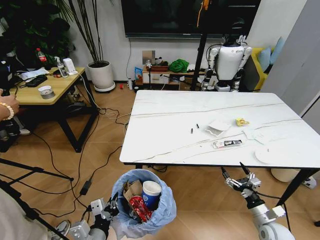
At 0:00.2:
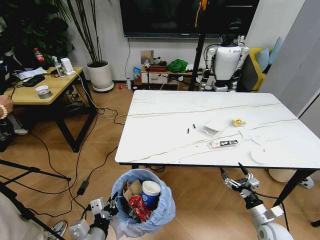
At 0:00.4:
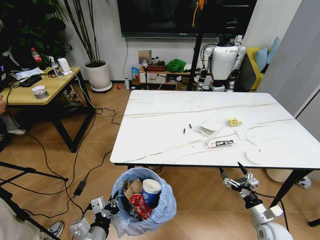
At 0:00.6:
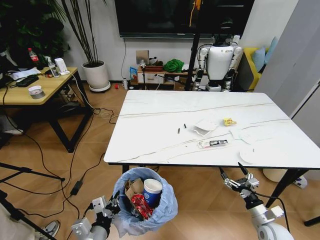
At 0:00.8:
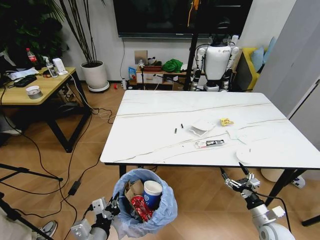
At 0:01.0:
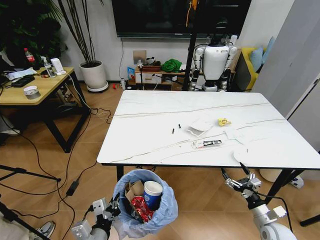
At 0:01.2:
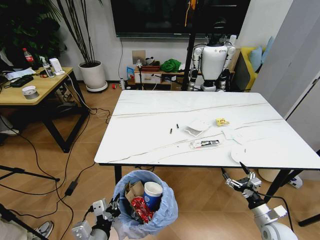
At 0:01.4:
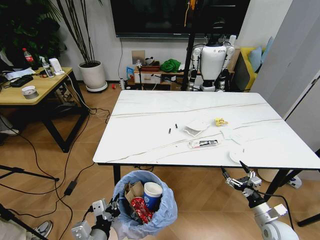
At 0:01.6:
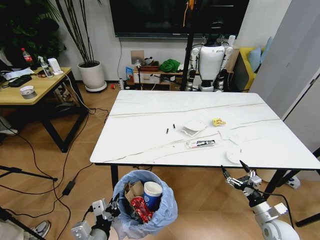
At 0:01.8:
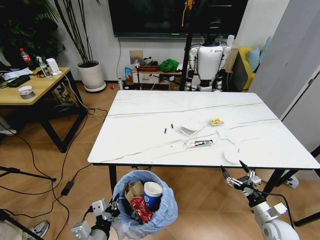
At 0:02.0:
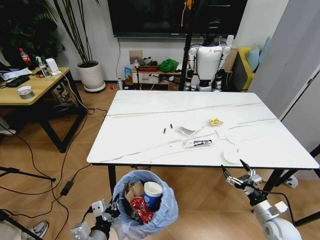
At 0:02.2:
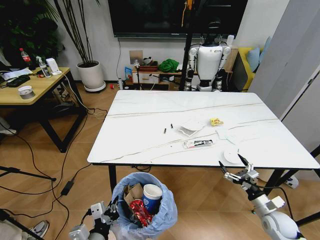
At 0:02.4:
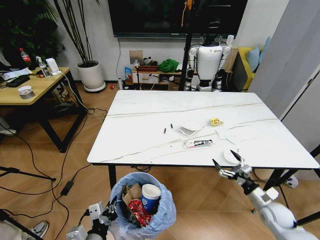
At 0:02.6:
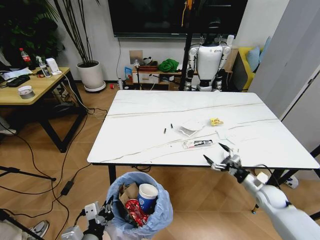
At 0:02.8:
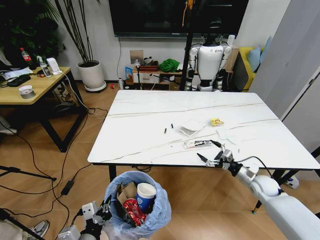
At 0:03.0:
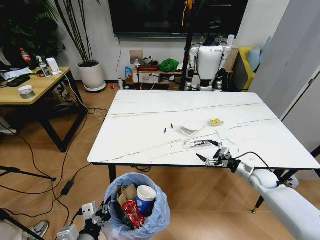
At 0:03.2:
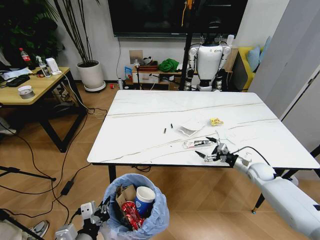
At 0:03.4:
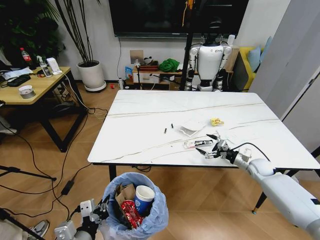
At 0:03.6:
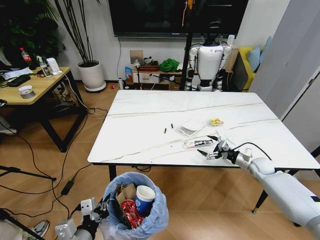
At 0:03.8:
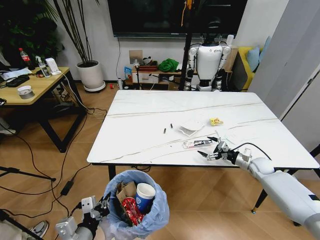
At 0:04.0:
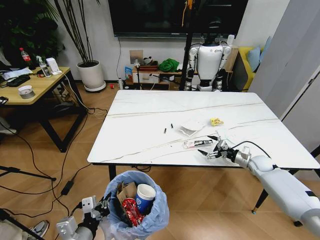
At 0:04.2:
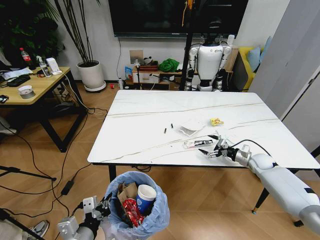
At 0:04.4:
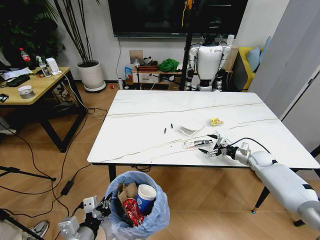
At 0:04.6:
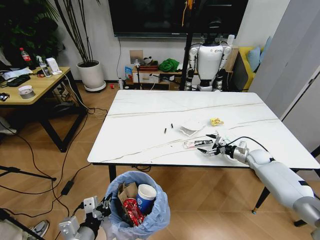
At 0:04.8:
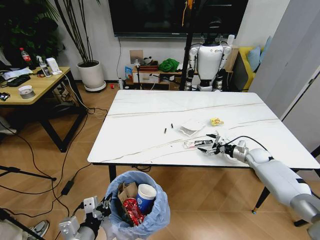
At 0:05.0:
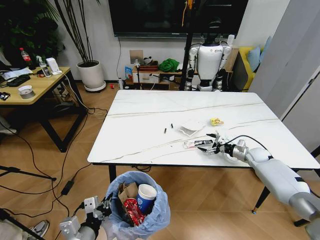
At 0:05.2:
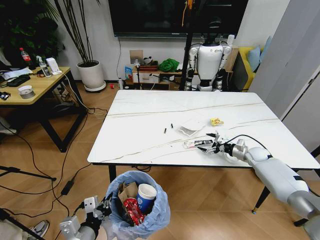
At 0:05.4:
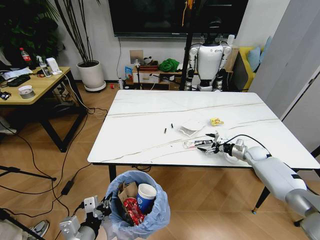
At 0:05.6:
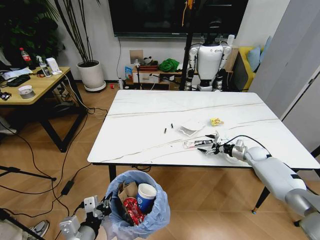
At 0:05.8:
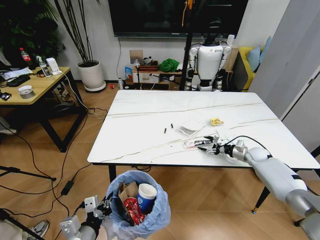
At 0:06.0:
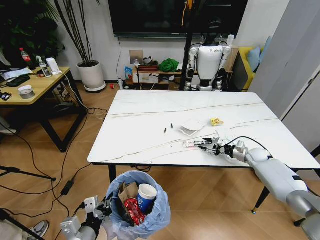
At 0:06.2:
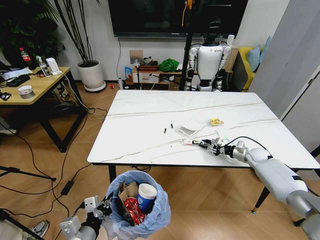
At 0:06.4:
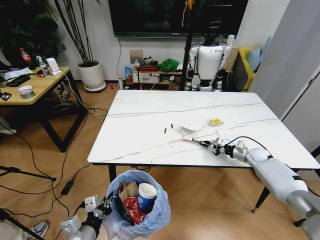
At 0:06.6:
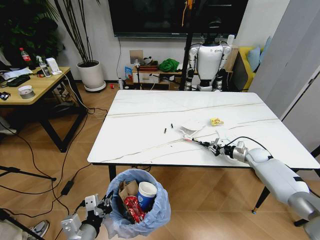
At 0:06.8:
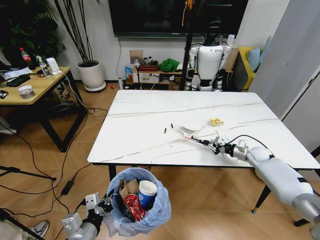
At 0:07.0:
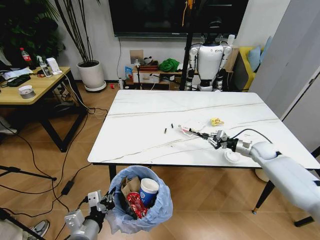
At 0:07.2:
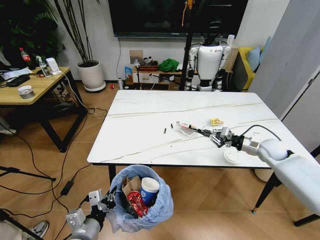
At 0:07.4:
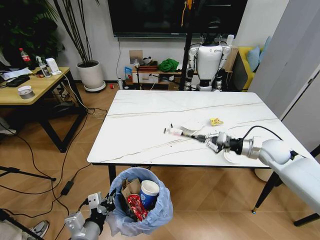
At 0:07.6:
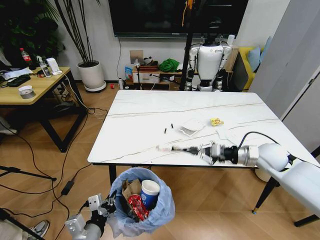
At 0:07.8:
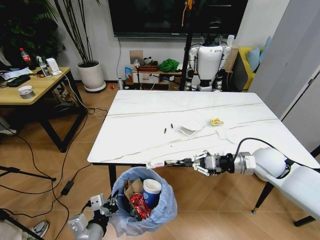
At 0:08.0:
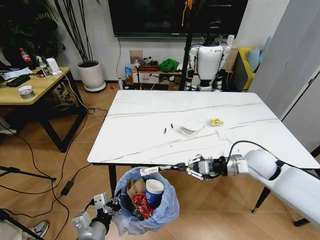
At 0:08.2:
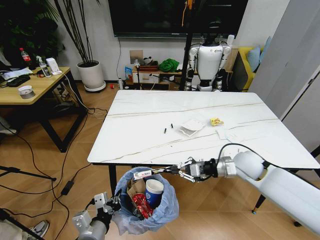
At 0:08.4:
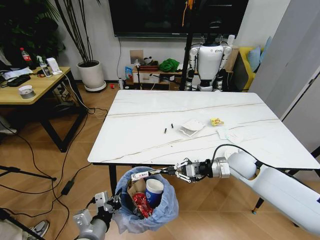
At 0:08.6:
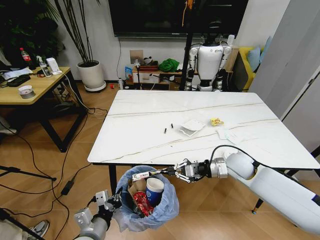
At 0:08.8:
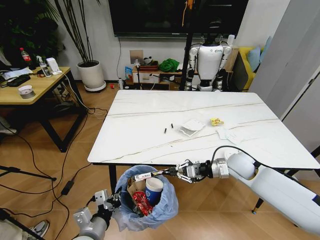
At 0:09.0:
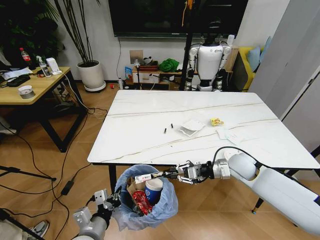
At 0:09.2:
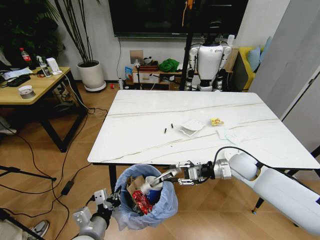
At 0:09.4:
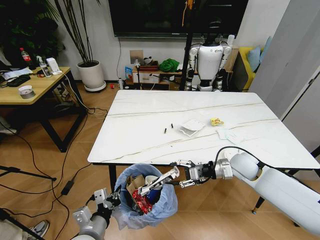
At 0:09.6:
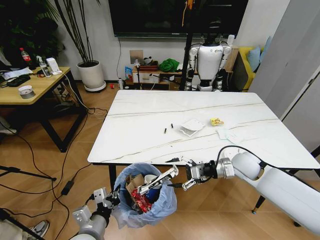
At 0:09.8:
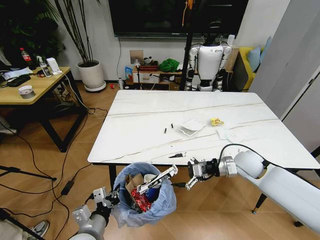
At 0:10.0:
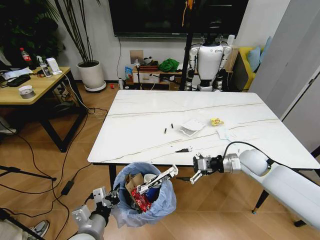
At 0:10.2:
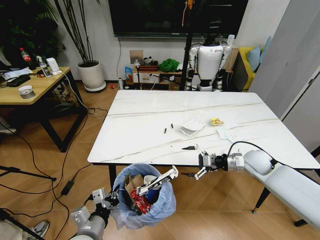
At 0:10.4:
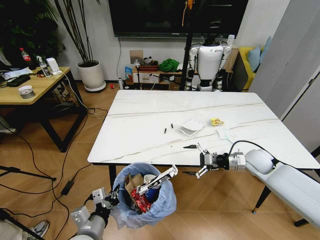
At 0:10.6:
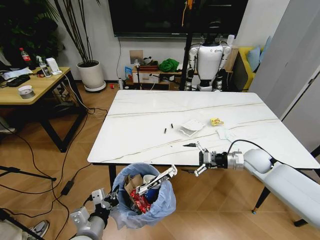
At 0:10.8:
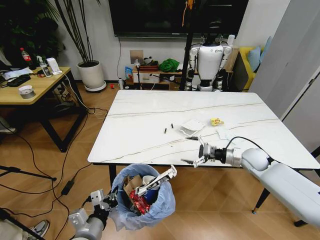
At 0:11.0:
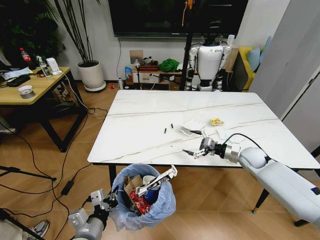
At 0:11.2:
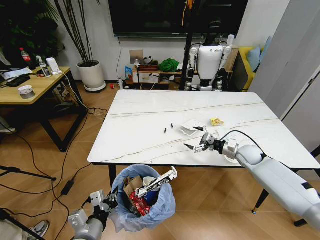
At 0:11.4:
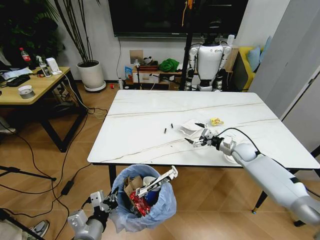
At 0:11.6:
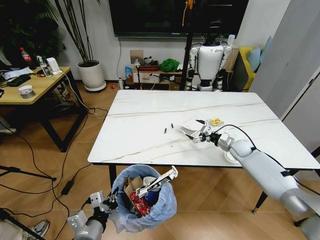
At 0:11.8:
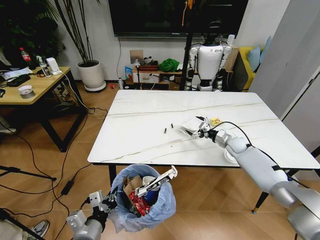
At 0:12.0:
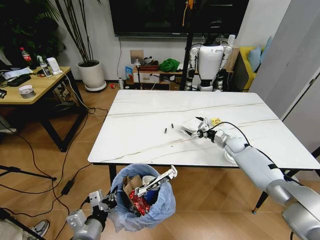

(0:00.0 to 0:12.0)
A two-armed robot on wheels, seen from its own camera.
Task of the whole recording: Pick up the trash bin and place the trash from the table into it.
0:01.6 - 0:03.0: The right gripper is displaced forward by about 15 cm.
0:03.0 - 0:04.4: The right gripper goes about 10 cm forward.
0:04.4 - 0:06.0: The right gripper closes its fingers.
0:06.0 - 0:07.6: The right gripper travels upward, backward and to the left by roughly 20 cm, and closes.
0:07.6 - 0:09.0: The right gripper moves to the left and downward, some 10 cm.
0:09.0 - 0:10.4: The right gripper is displaced to the right by about 5 cm, and opens.
0:10.4 - 0:12.0: The right gripper heads forward and downward, covering roughly 15 cm.

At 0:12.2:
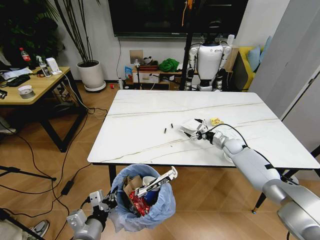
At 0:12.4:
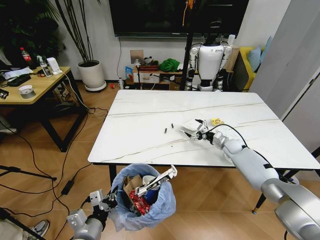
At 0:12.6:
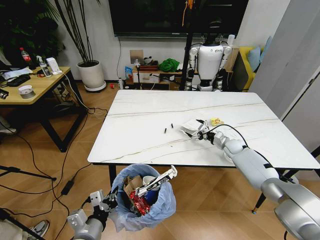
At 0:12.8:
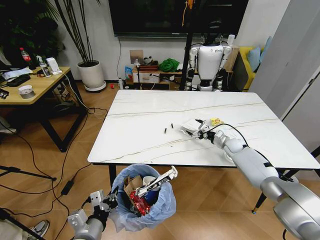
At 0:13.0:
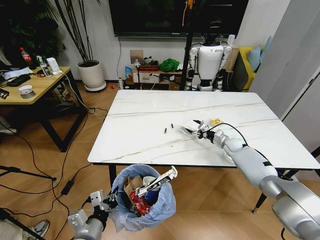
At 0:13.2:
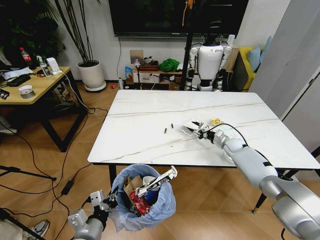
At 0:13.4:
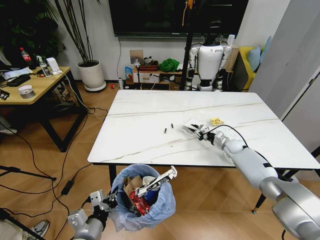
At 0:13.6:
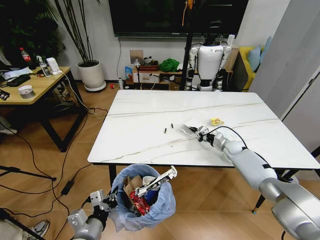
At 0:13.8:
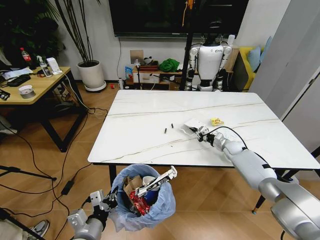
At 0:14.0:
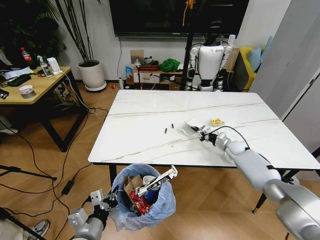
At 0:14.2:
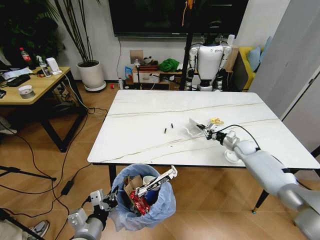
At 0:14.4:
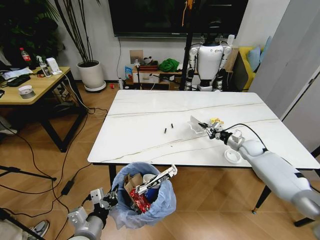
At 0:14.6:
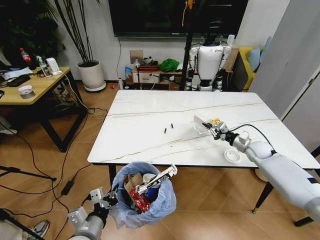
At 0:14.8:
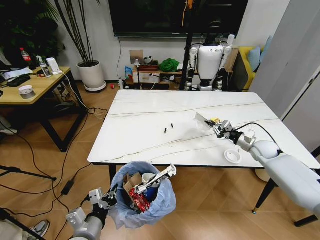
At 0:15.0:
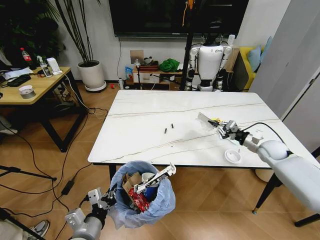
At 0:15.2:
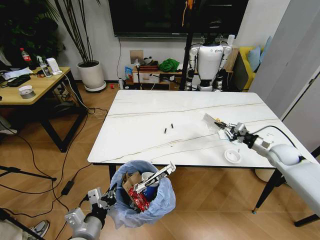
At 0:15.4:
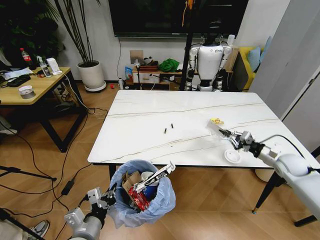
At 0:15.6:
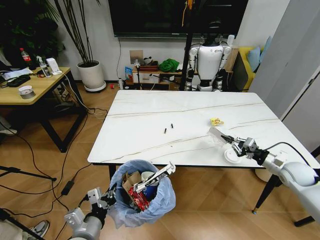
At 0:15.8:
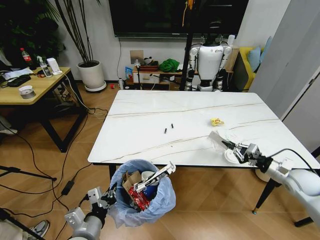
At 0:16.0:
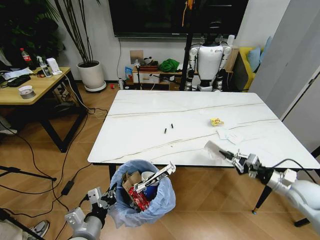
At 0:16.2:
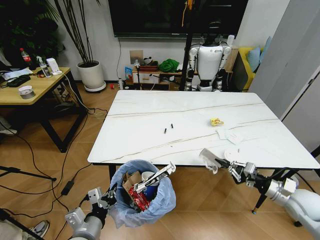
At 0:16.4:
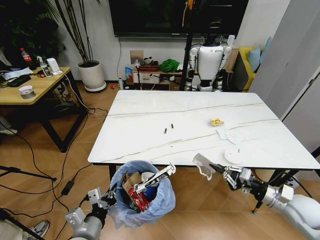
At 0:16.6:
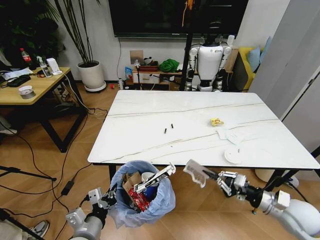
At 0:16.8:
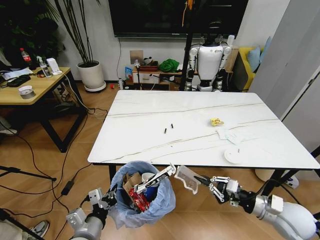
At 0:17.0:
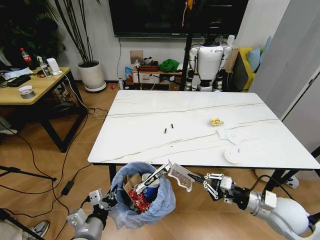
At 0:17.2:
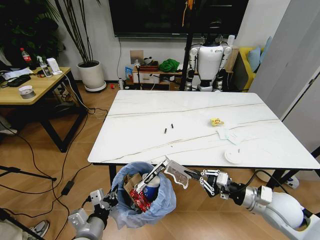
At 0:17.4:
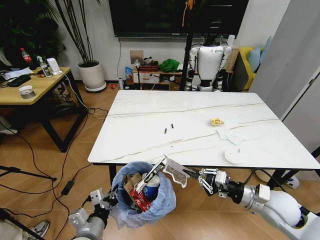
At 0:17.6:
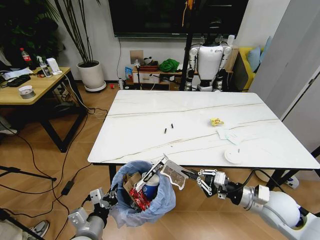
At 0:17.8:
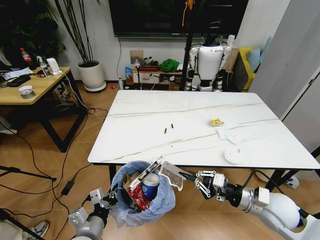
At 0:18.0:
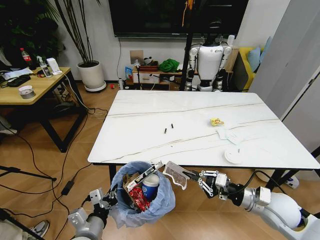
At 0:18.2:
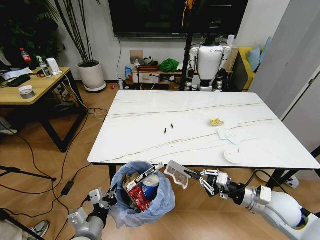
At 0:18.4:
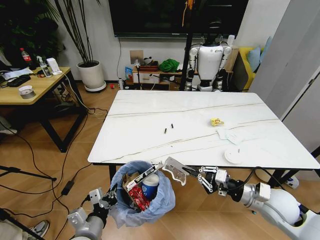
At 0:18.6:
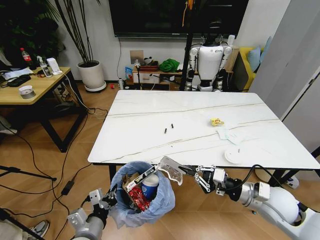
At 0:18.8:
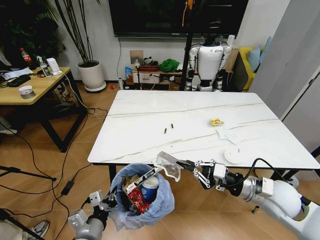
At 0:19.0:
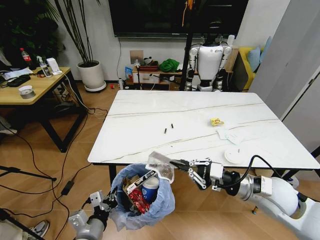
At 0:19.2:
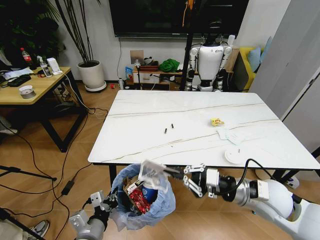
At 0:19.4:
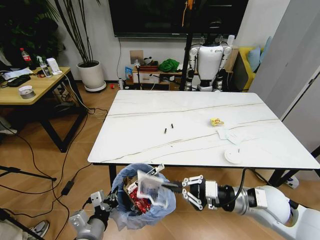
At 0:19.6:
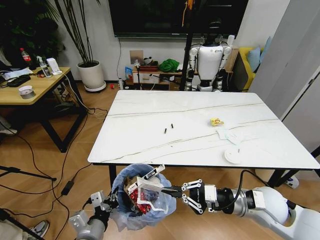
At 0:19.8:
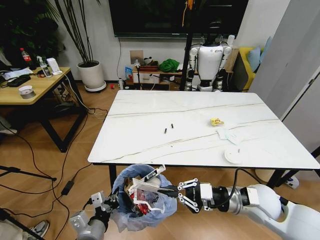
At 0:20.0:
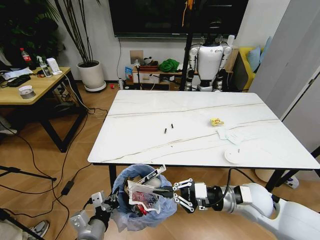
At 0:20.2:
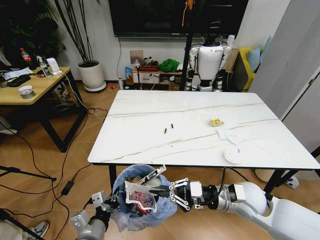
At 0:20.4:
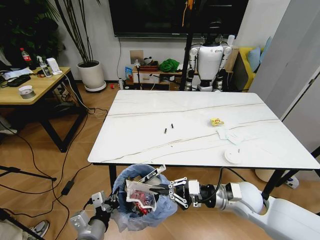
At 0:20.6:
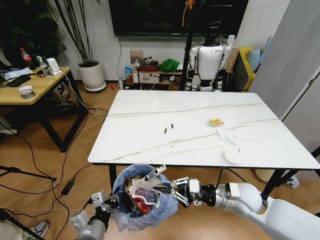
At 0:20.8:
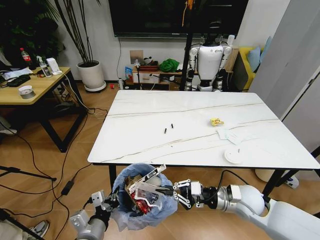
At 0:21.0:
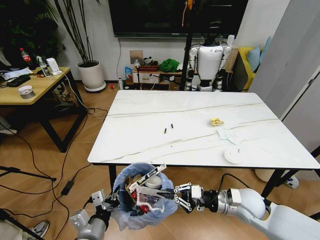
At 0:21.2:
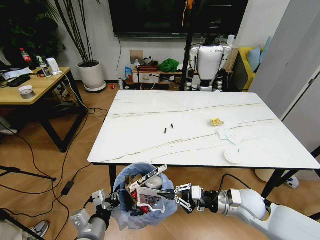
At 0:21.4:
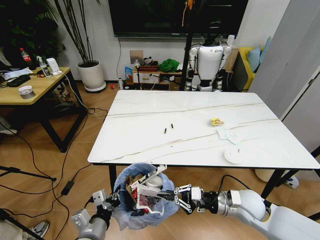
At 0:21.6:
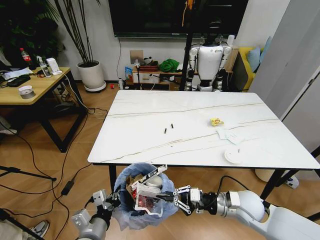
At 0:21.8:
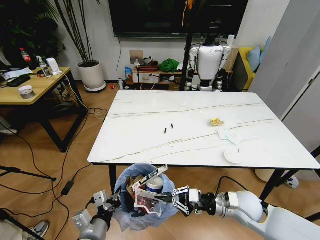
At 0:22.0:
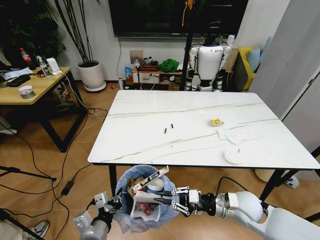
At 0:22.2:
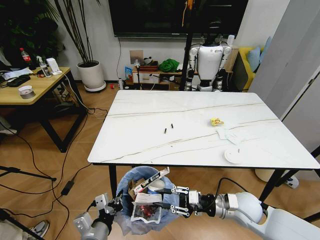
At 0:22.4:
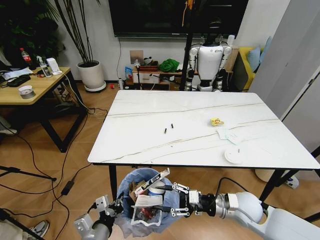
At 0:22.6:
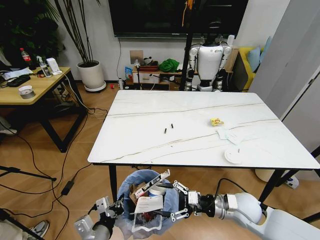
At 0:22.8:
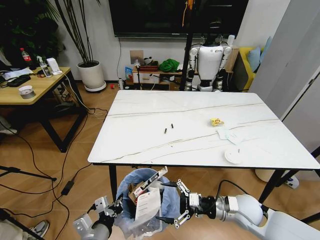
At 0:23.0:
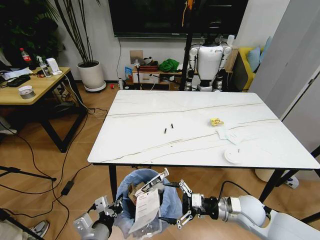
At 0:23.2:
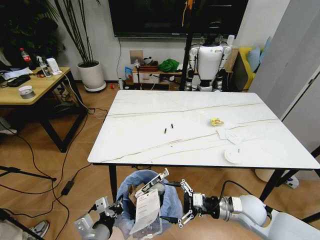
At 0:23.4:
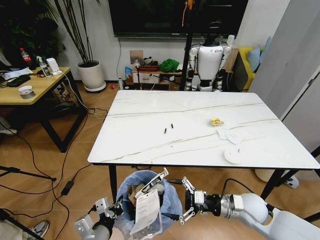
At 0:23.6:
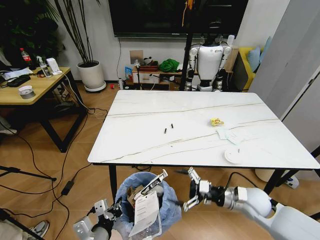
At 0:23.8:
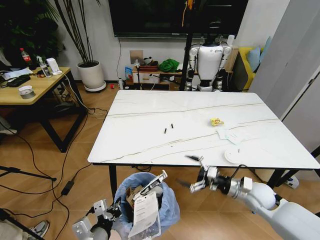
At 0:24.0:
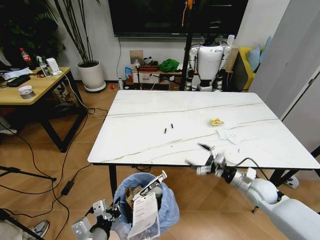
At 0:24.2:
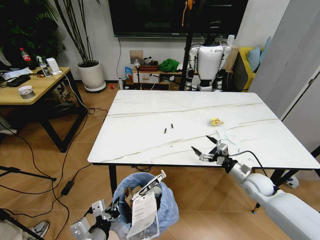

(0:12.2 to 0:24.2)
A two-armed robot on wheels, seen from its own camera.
Task of the whole recording: Pick up the trash bin and place the trash from the table into it.
0:12.2 - 0:13.8: The right gripper closes its fingers.
0:13.8 - 0:15.2: The right gripper heads upward, to the right and backward, covering approximately 20 cm.
0:15.2 - 0:16.6: The right gripper shifts some 20 cm backward.
0:16.6 - 0:18.2: The right gripper heads to the left, covering some 5 cm.
0:18.2 - 0:19.8: The right gripper shifts about 5 cm to the left.
0:19.8 - 0:21.2: The right gripper shifts about 5 cm downward.
0:21.2 - 0:22.6: The right gripper opens its fingers.
0:22.6 - 0:24.2: The right gripper shifts about 15 cm to the right and forward.
